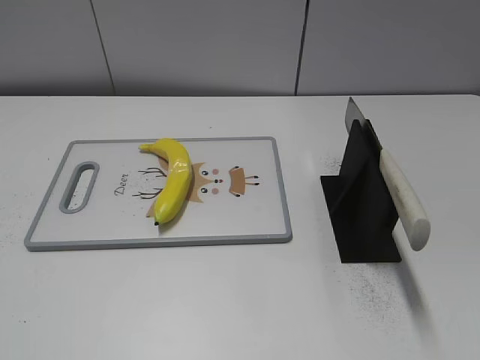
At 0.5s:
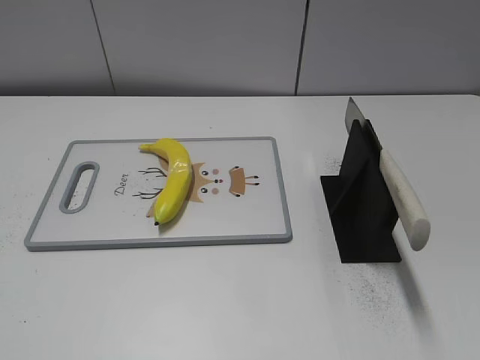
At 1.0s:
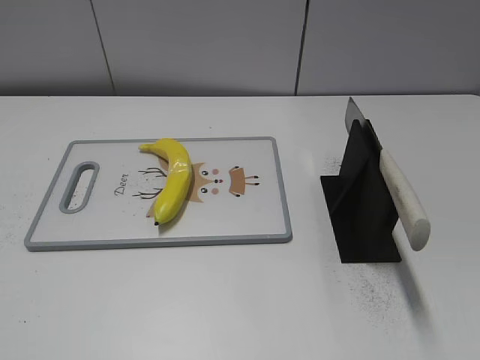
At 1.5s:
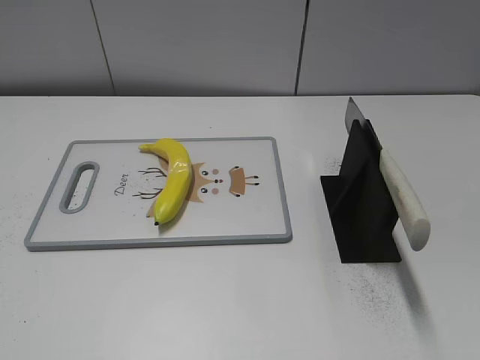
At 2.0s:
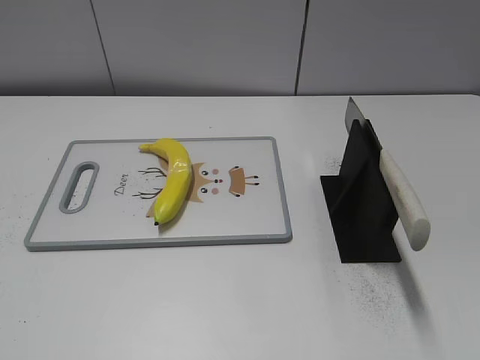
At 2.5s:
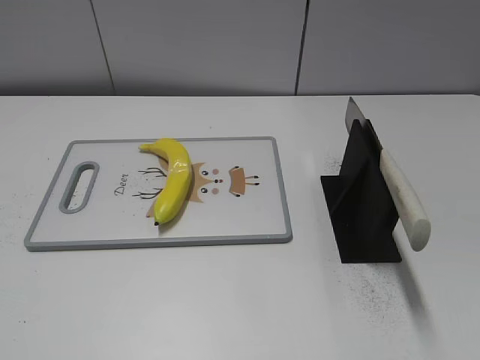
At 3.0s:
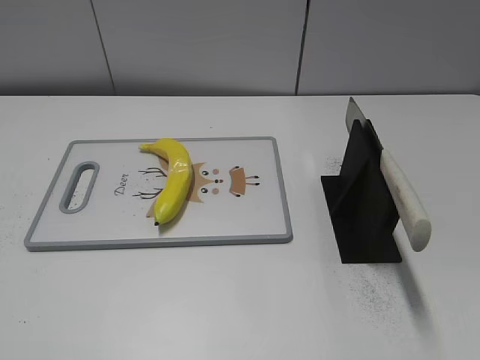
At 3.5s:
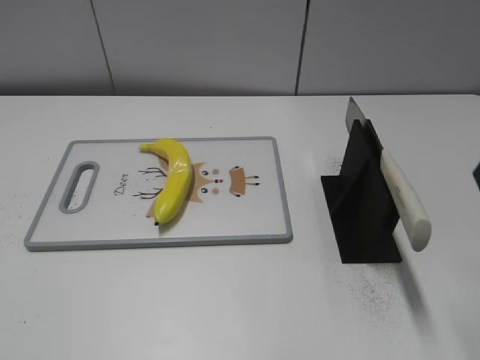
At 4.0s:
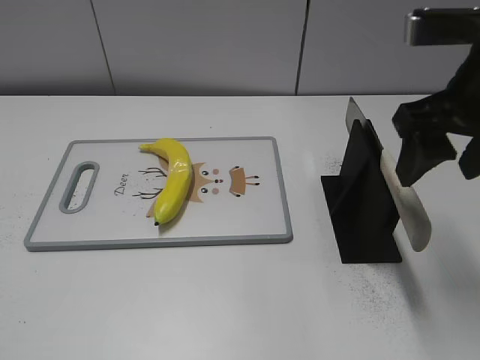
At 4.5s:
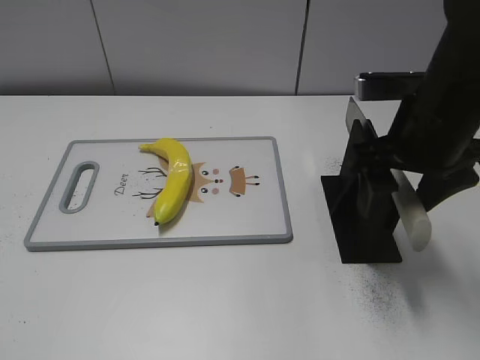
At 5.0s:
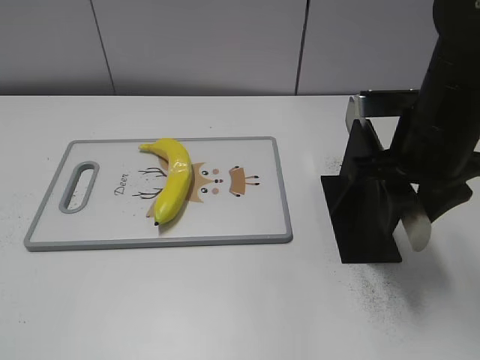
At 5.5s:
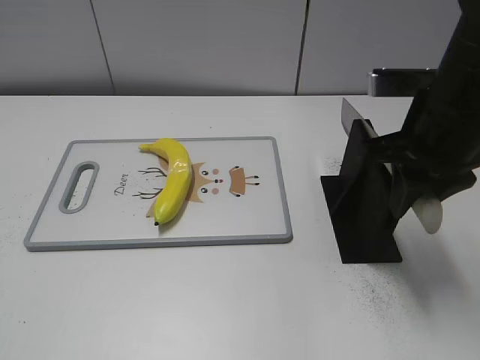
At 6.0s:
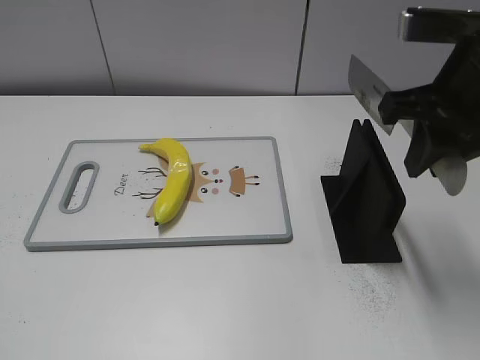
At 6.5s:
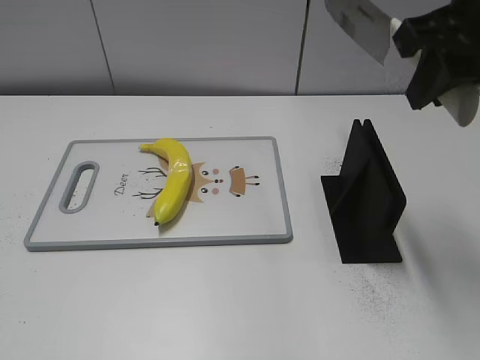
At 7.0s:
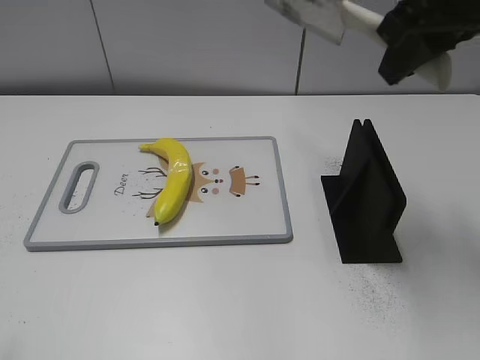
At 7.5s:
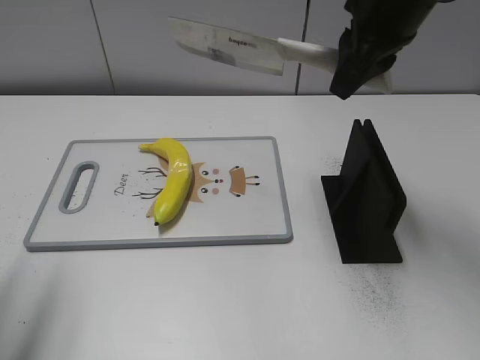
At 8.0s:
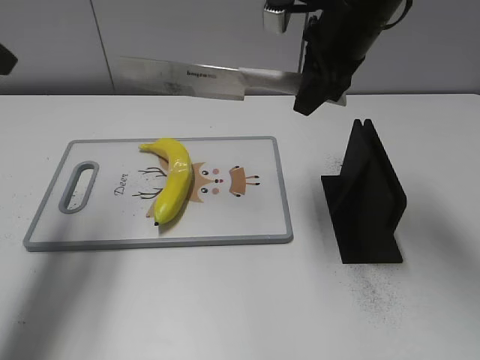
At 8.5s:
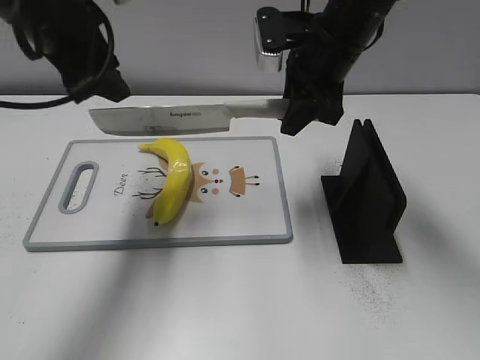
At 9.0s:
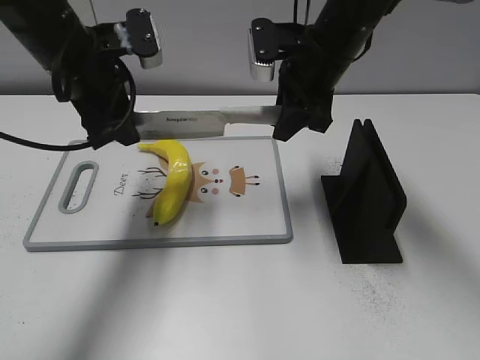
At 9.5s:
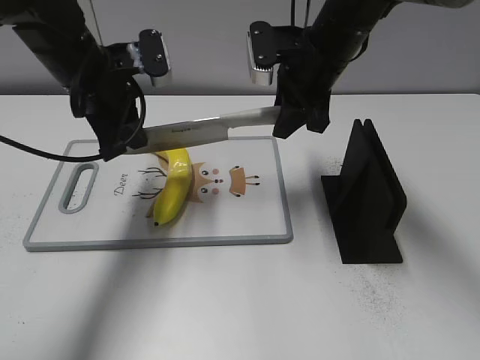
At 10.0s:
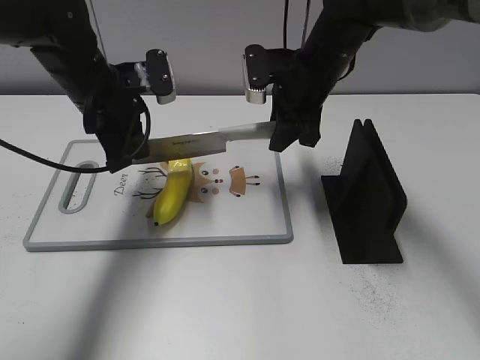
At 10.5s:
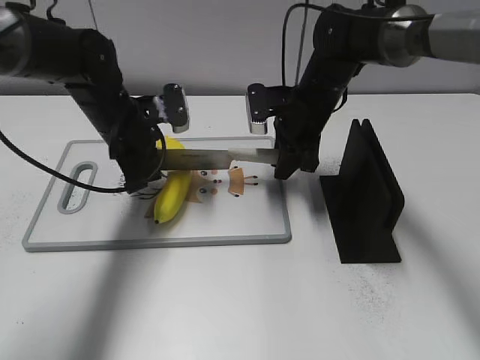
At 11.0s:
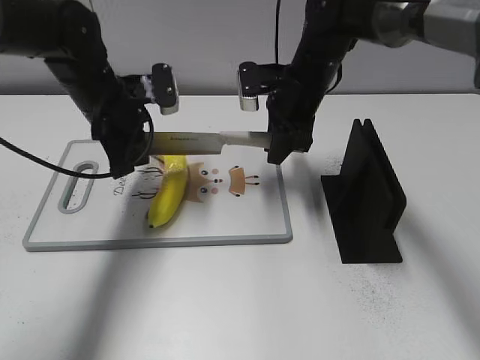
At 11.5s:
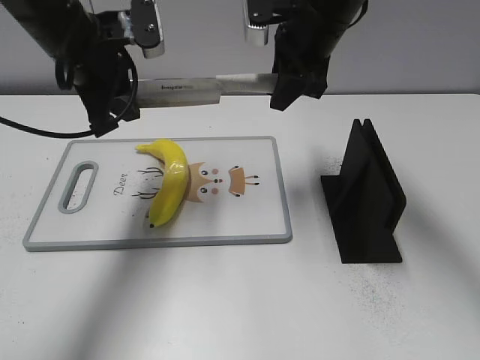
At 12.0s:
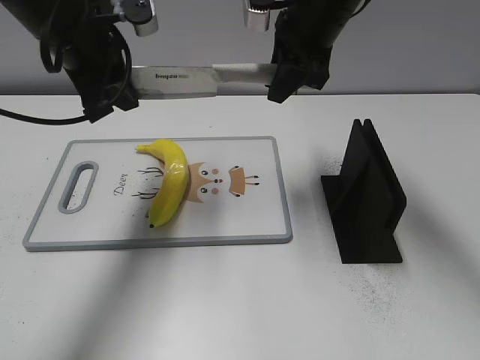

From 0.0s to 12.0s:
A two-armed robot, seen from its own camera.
Task of the whole recording: cut plastic banana.
Step, from 0.0s to 6.0s: Grab the knife handle with your right hand.
Step, from 6.5s to 11.0s: Lift the knife with your right hand.
From 2.0s to 4.0s: The right gripper travels forward and to the left by roughly 25 cm.
From 4.0s to 6.0s: The right gripper travels downward and back again, approximately 10 cm each way, and closes its fingers.
From 6.0s to 8.0s: The right gripper travels forward and to the left by approximately 15 cm; the left gripper heads forward, covering roughly 30 cm.
From 8.0s to 10.0s: The right gripper is displaced downward by some 10 cm. Meanwhile the left gripper is displaced downward, to the right and forward by about 20 cm, and closes.
From 10.0s to 12.0s: The two grippers go some 10 cm upward.

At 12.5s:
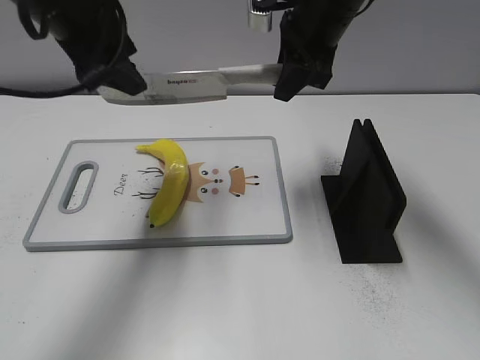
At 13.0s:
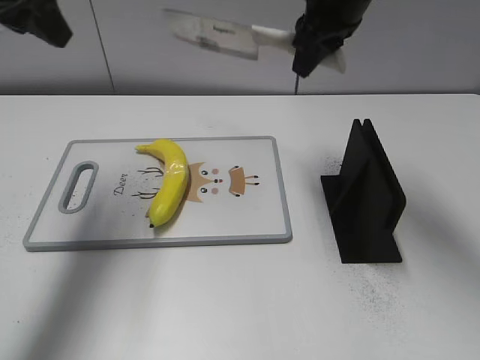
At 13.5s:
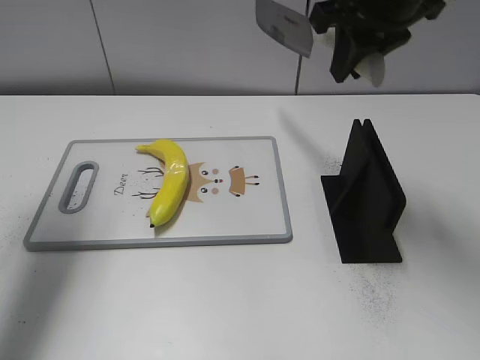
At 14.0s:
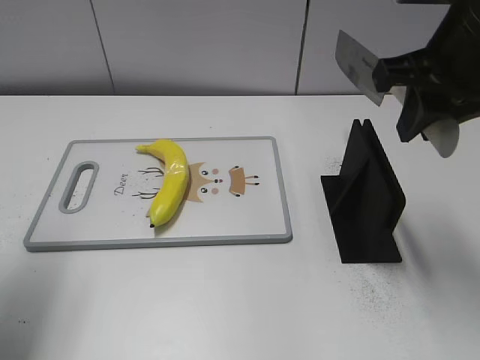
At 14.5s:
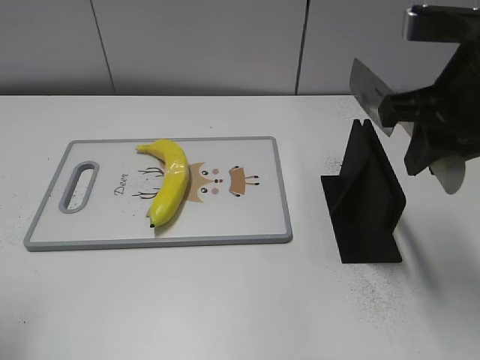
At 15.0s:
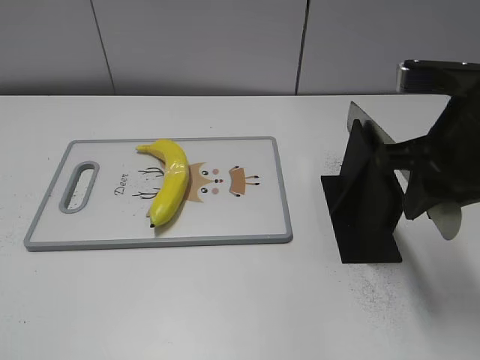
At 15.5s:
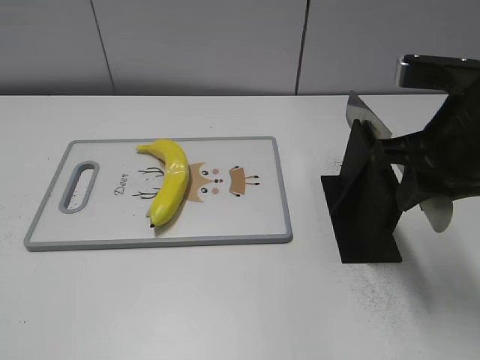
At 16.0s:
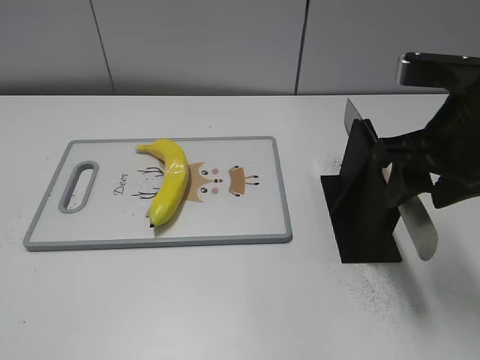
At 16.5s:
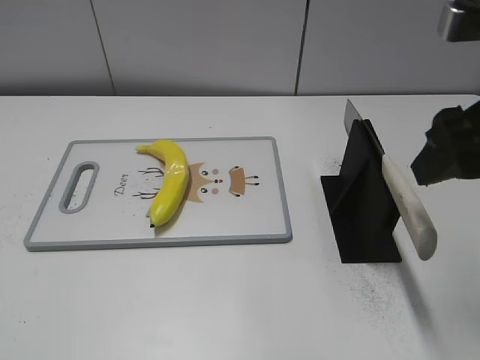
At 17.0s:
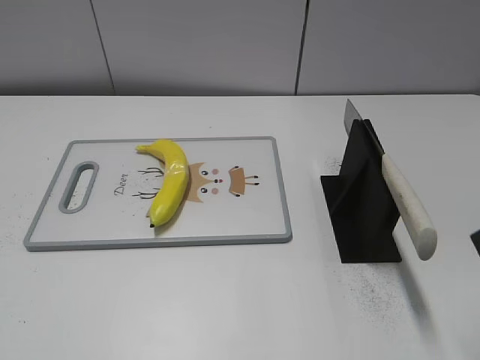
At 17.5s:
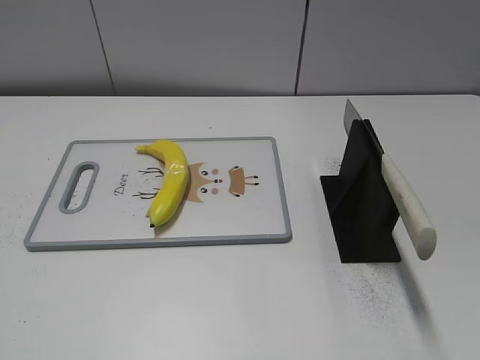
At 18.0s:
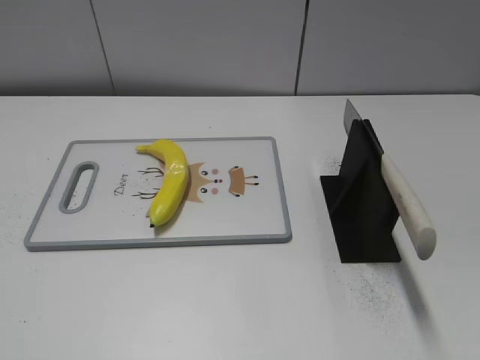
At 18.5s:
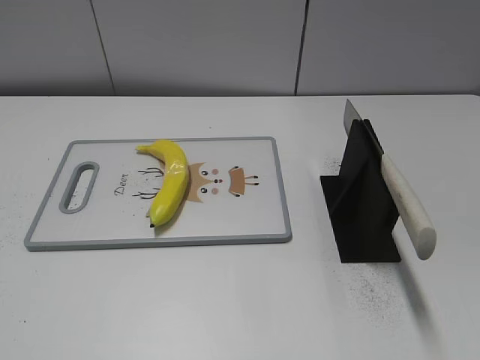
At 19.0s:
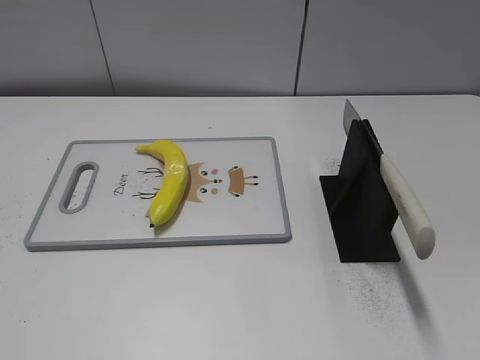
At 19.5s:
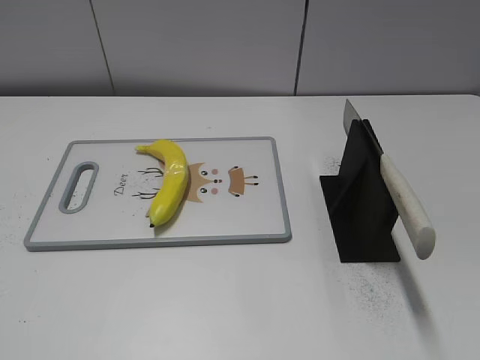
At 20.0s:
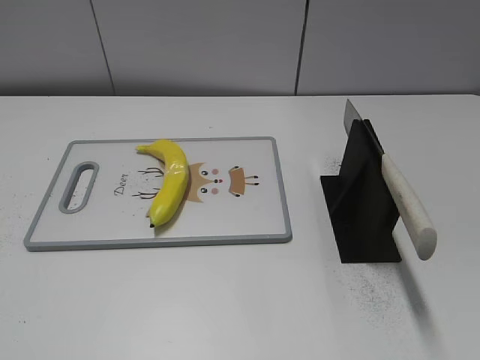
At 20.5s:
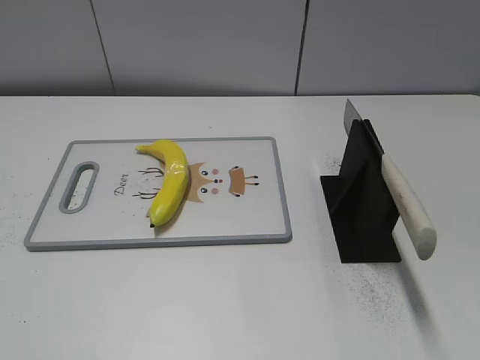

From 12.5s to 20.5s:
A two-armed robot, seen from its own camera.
Task of the whole recording: cut plastic banana.
Step, from 13.5s to 15.0s: Lift the knife with your right hand.
Step, from 15.5s to 19.5s: Place the knife on the storage rack with your right hand.
From 12.5s to 14.5s: The left gripper moves backward and to the left, about 25 cm, while the right gripper heads backward and to the right, covering some 20 cm.
From 14.5s to 16.5s: The right gripper ends up about 5 cm from where it was, and opens its fingers.
From 16.5s to 18.5s: The right gripper goes some 20 cm backward and to the right.
